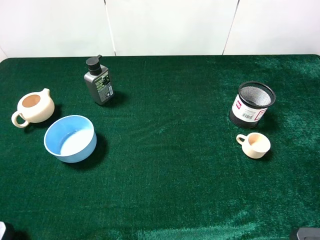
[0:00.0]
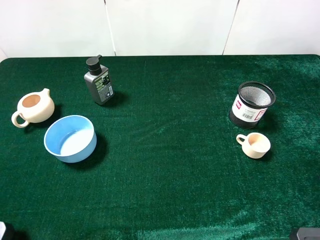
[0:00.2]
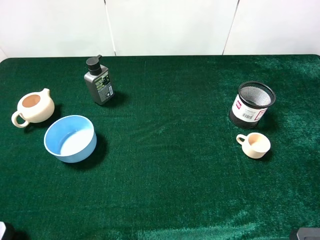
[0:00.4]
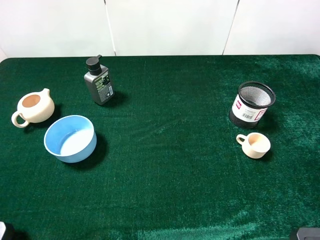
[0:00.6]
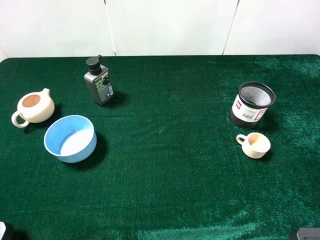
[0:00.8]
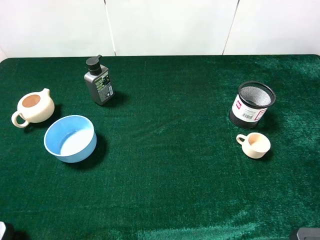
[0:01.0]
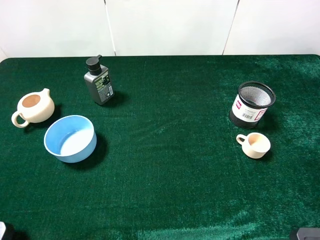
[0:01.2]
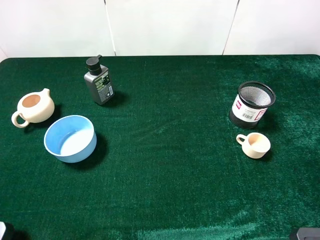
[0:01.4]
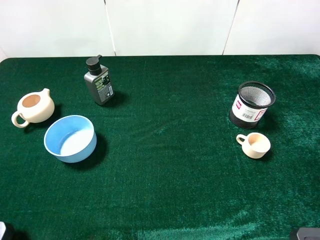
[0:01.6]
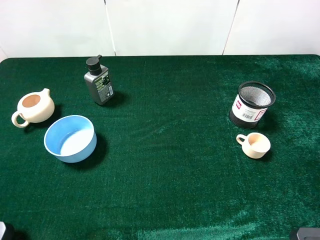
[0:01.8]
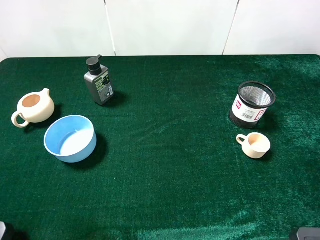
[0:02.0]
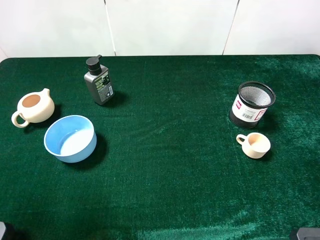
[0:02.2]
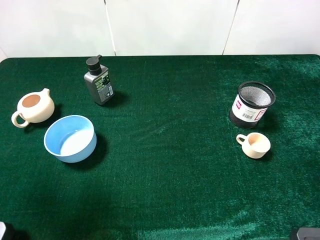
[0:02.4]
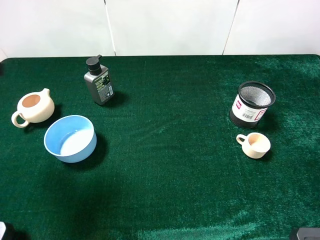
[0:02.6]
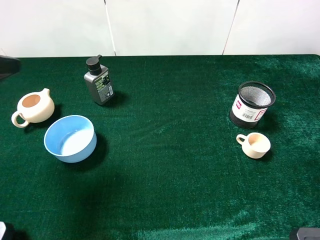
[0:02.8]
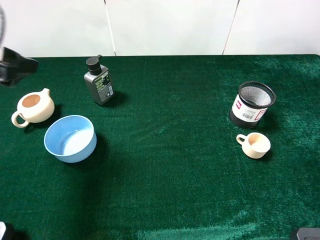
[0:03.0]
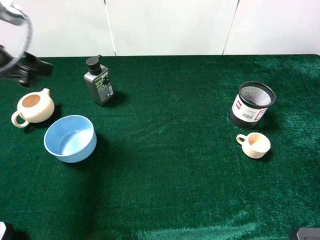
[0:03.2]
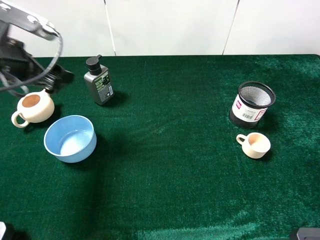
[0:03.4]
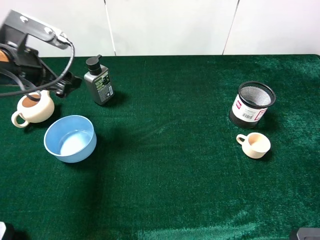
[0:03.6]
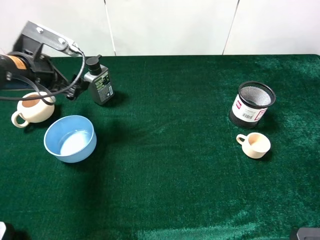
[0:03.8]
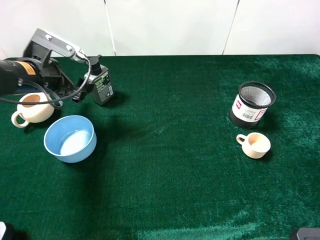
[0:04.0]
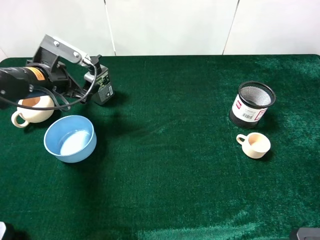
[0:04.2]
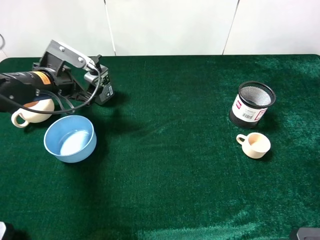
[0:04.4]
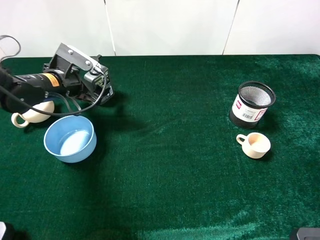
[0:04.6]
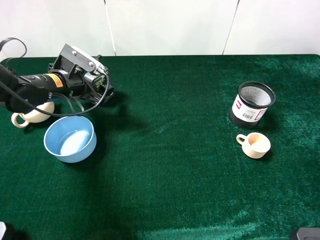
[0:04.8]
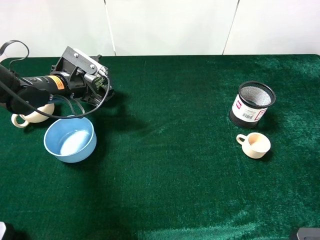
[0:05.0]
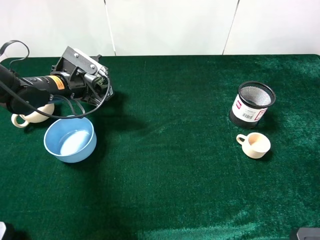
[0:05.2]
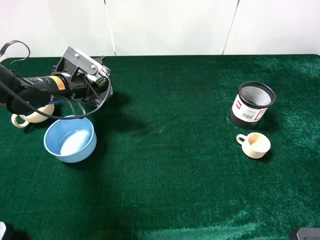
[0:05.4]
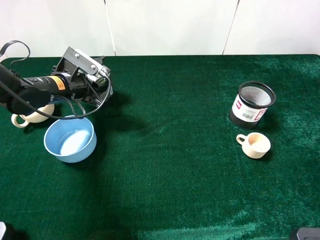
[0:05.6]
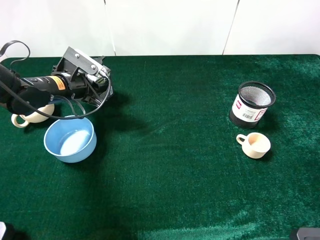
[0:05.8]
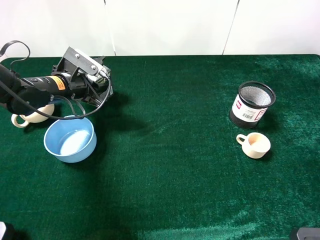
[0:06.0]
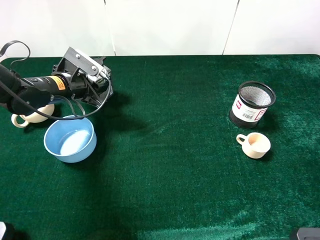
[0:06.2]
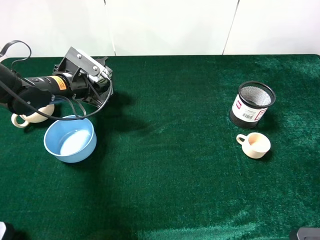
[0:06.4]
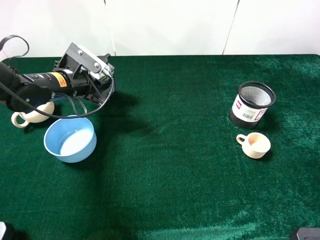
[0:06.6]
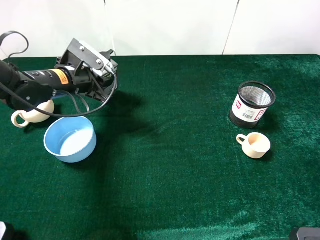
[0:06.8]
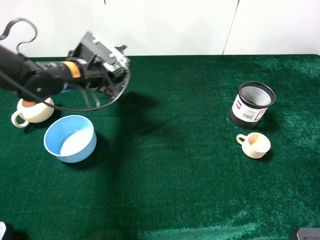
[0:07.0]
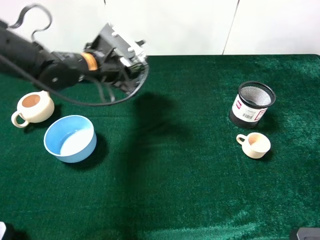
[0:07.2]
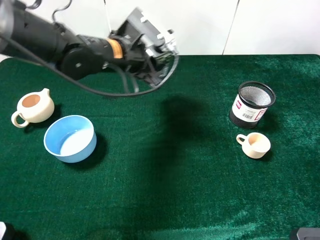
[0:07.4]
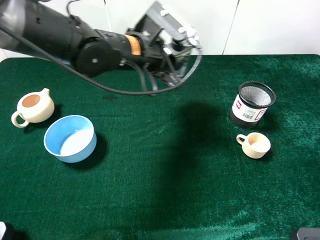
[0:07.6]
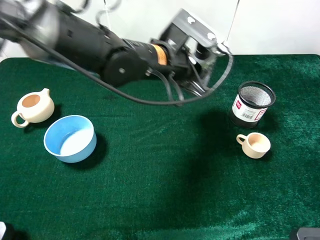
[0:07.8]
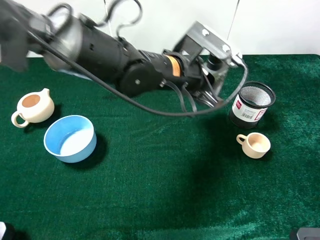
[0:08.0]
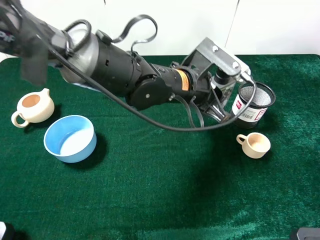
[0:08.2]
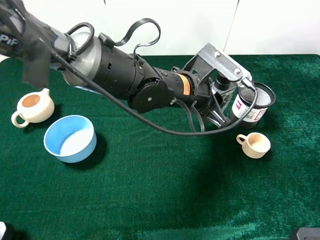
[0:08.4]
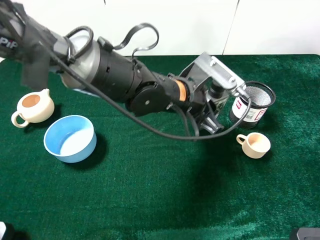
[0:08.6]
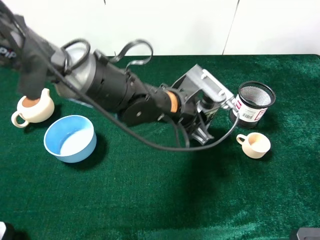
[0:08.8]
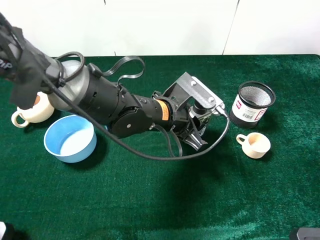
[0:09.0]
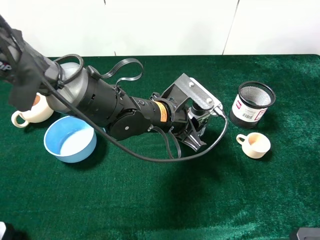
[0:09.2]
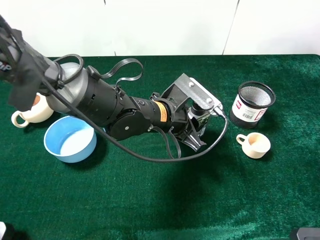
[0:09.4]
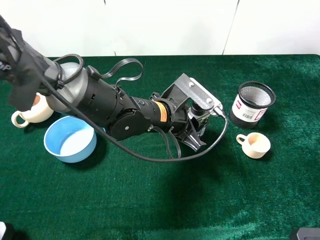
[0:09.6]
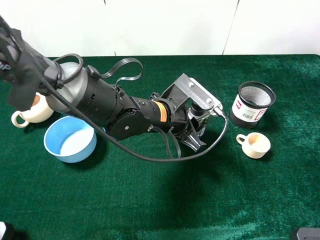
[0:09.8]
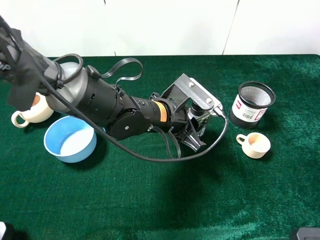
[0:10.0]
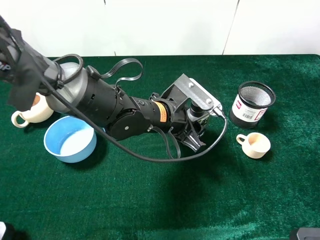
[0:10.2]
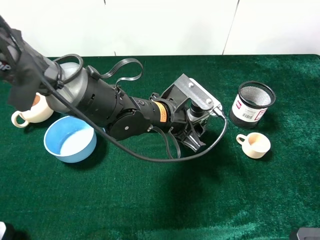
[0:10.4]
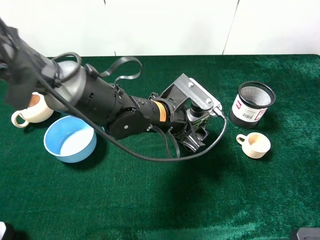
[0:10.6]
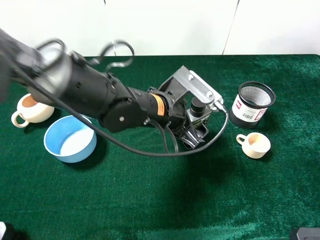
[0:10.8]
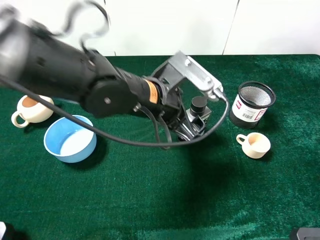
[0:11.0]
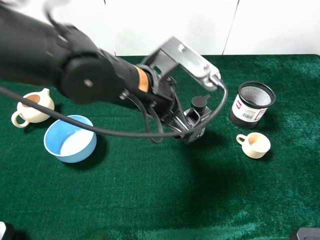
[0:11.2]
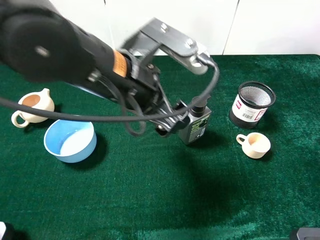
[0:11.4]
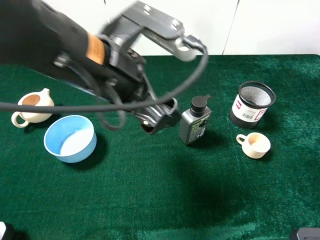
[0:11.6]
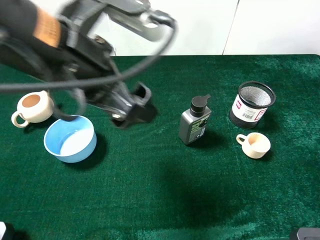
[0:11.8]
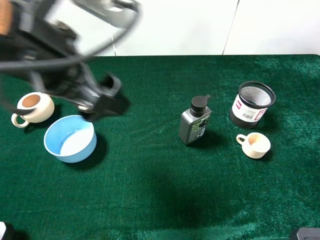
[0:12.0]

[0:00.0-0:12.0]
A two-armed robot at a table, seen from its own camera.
Task of the whole recording: the gripper move the object.
Step, 0:00.0 to 0:05.2: Grasp the hard facial cleanser with the left gripper.
Step, 0:05.4 to 0:10.4: Place the hard facial cleanser on the table with the left gripper.
0:00.0 to 0:01.6: Neither gripper changes place.
0:01.6 to 0:03.0: The left gripper is displaced forward by about 20 cm.
0:03.0 to 0:04.4: The left gripper is displaced downward and forward by approximately 15 cm.
0:04.4 to 0:06.0: The left gripper closes.
0:06.0 to 0:07.6: The left gripper travels to the right and upward by roughly 20 cm.
0:07.6 to 0:09.0: The left gripper travels downward and backward by about 10 cm.
0:09.0 to 0:10.4: The left gripper opens up.
0:10.4 to 0:12.0: The left gripper is displaced upward and to the left by some 25 cm, and opens.

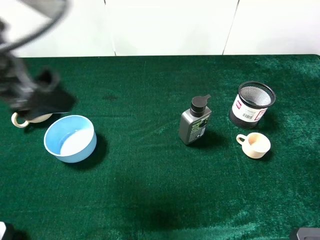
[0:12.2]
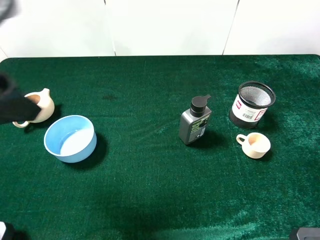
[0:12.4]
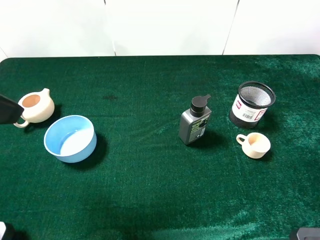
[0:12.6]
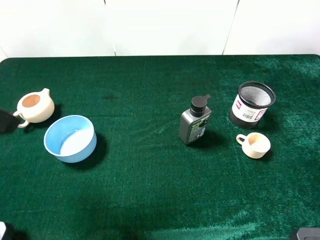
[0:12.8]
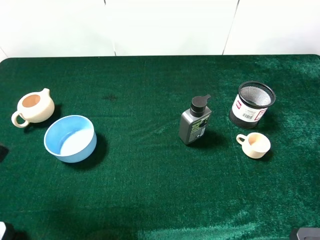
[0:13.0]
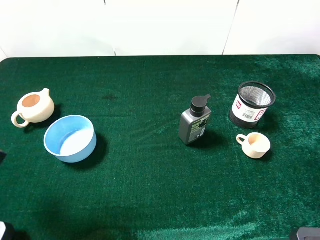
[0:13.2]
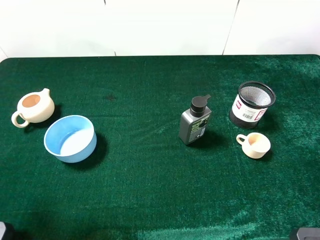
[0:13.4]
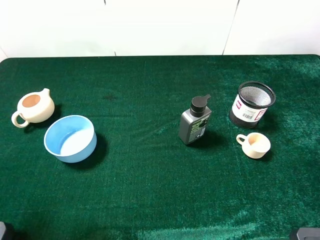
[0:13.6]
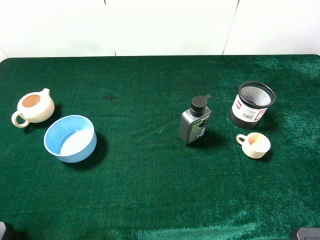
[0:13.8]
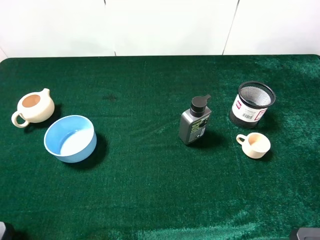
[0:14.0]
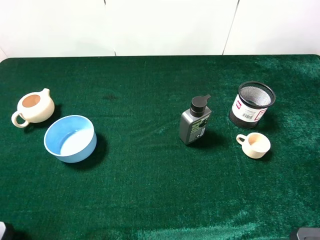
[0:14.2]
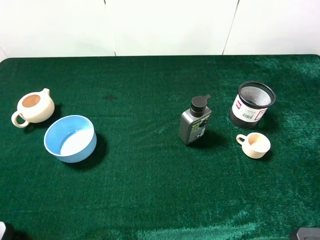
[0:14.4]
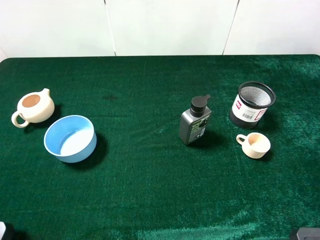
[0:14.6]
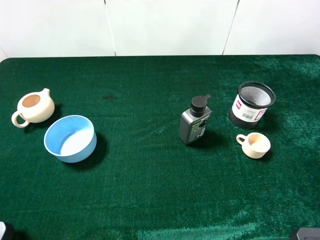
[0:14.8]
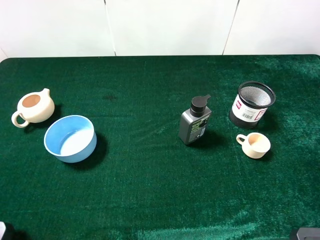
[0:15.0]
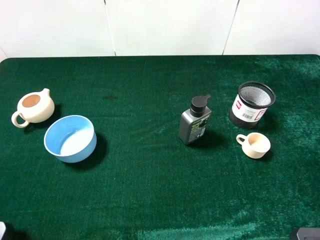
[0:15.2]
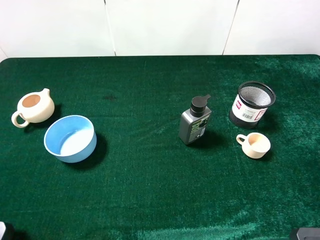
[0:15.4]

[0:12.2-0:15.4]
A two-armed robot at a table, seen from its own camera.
Task of the whole recording: the gripper move the object.
0:12.2 to 0:13.8: The left gripper shifts roughly 15 cm to the left, backward and downward.
